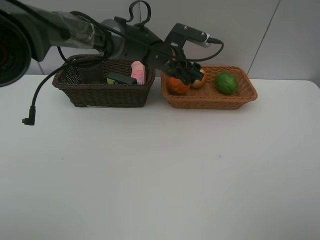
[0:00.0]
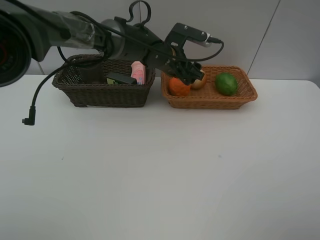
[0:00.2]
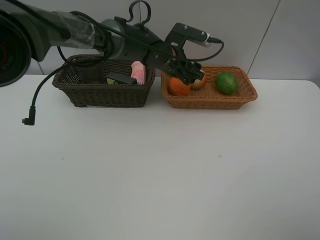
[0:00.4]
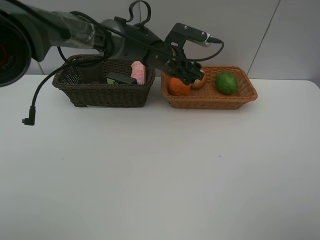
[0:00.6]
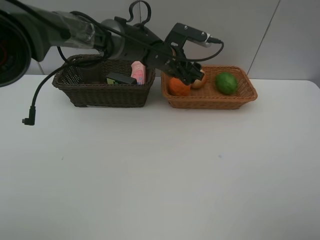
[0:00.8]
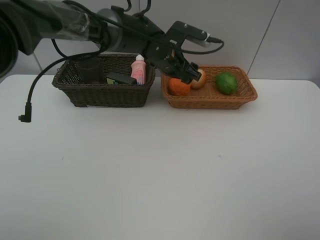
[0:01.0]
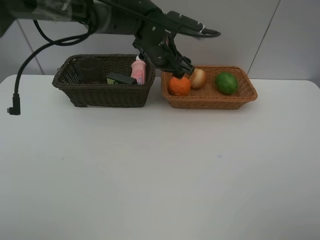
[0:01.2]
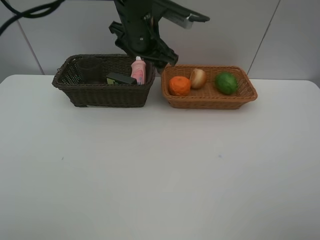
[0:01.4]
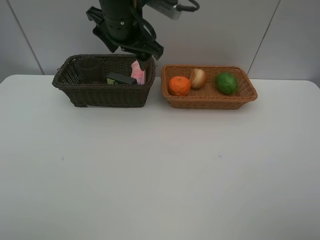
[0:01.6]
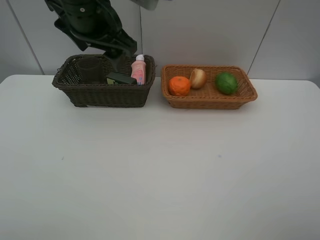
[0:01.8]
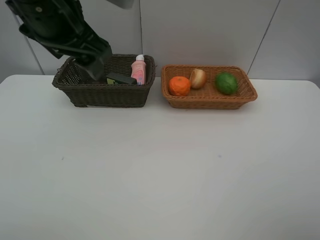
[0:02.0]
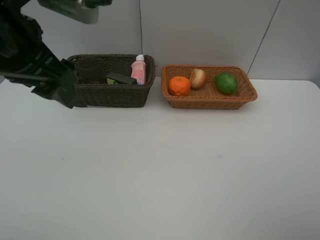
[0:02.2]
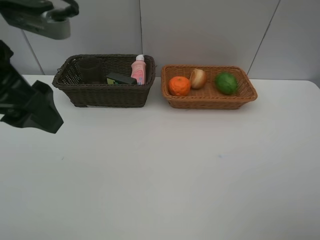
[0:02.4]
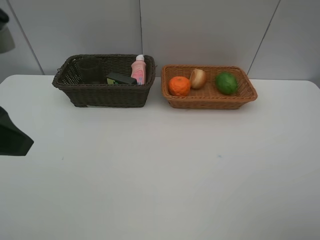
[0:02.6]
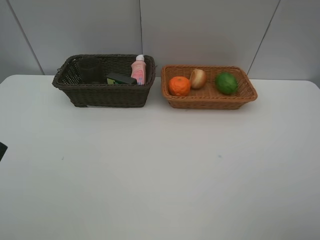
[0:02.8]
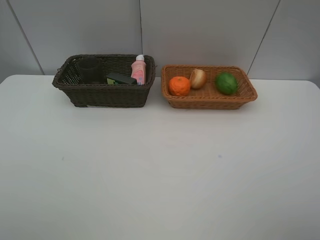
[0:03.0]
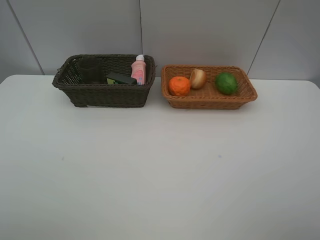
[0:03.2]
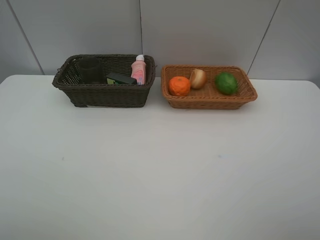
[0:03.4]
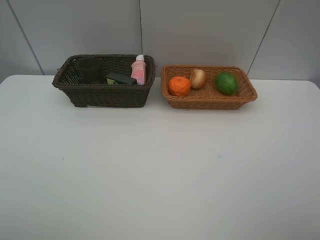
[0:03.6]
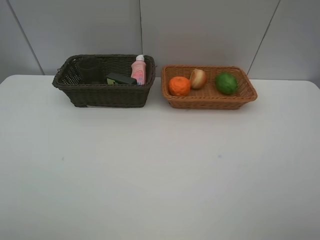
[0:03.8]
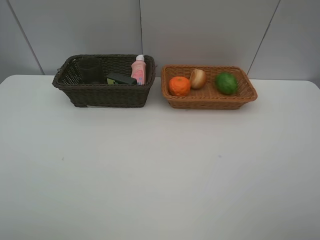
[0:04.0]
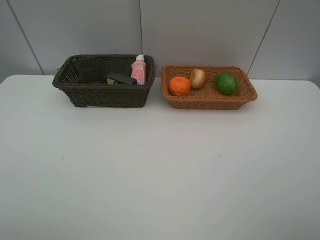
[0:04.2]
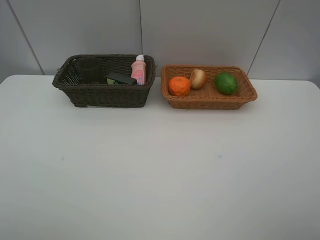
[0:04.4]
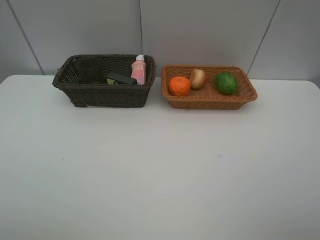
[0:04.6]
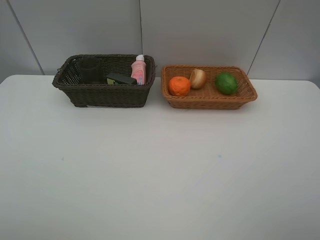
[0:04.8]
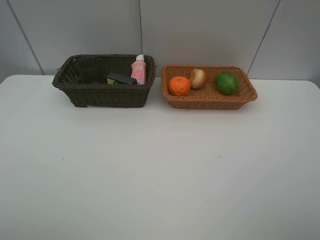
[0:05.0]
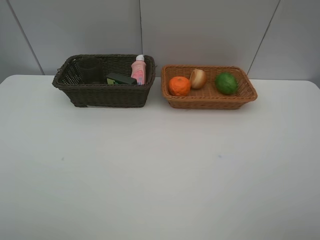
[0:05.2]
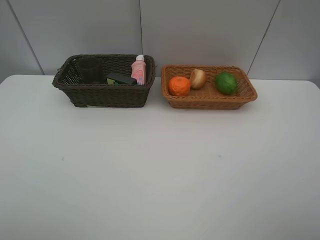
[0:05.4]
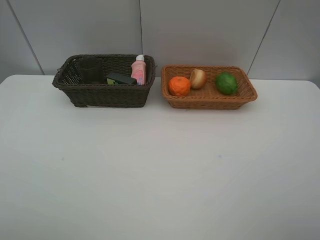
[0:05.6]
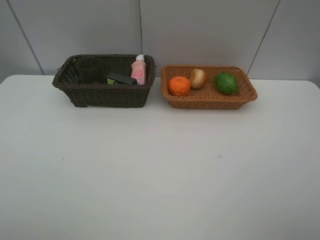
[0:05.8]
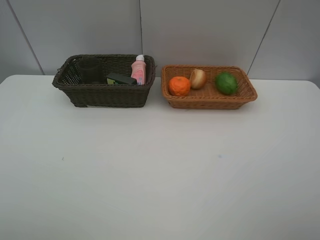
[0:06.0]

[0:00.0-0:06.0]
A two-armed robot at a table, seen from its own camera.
Task of the whole recording: place multiple objects separately in different baskets.
0:00.0 to 0:01.6: The left gripper is displaced upward, to the left and backward by some 15 cm.
0:01.6 to 0:03.0: The left gripper heads backward and to the left, covering approximately 35 cm.
0:04.4 to 0:06.0: Neither gripper changes place.
